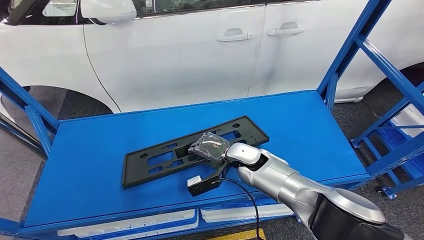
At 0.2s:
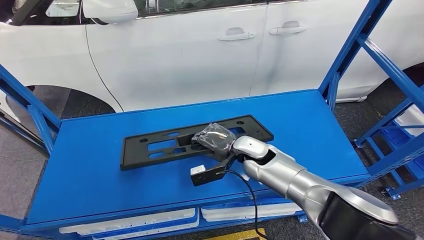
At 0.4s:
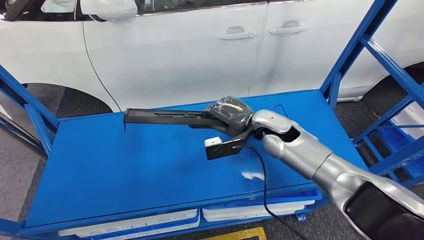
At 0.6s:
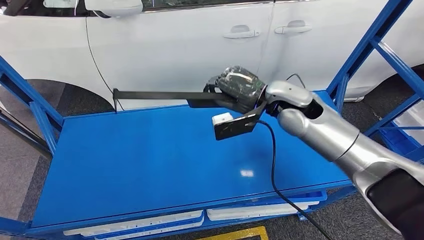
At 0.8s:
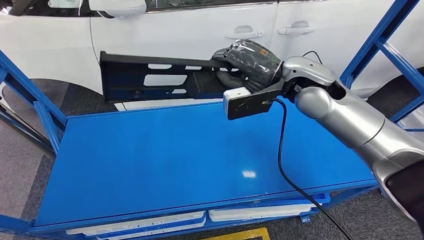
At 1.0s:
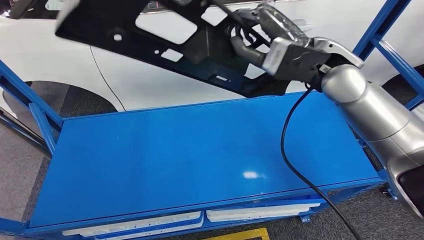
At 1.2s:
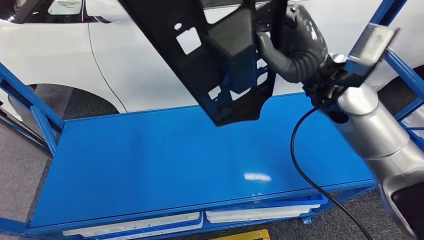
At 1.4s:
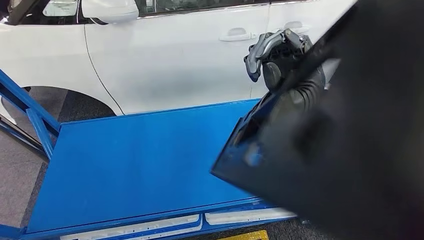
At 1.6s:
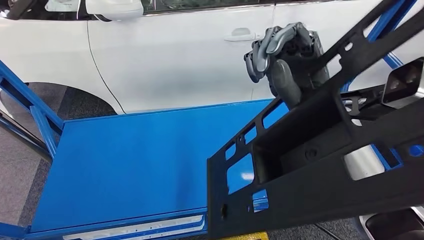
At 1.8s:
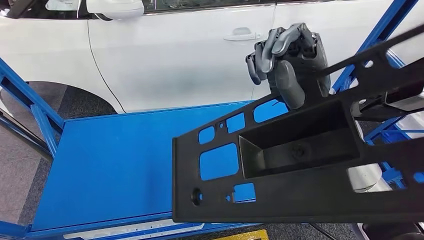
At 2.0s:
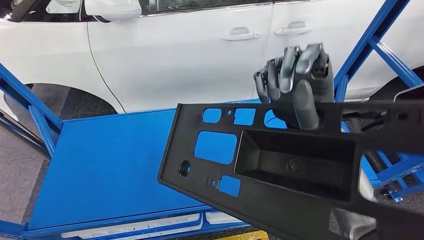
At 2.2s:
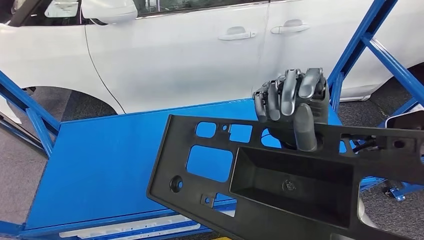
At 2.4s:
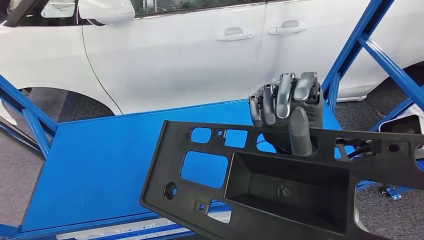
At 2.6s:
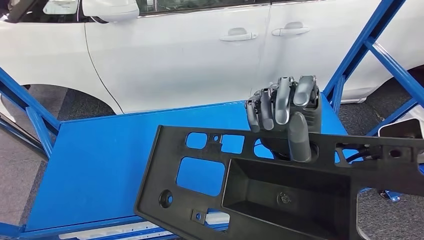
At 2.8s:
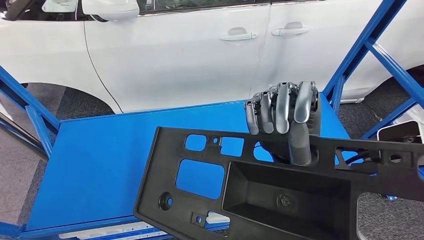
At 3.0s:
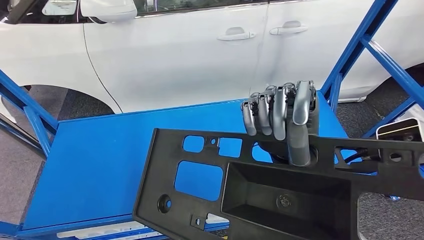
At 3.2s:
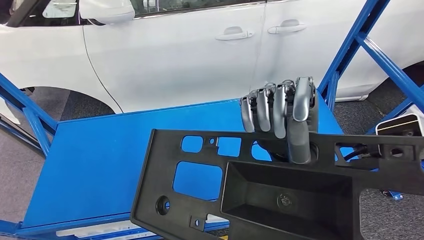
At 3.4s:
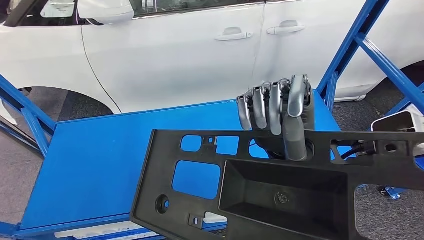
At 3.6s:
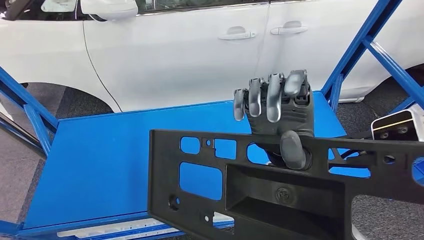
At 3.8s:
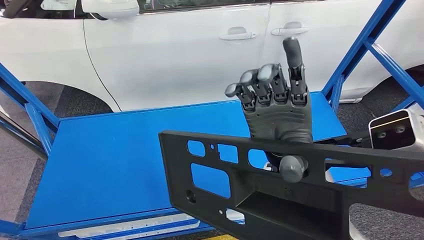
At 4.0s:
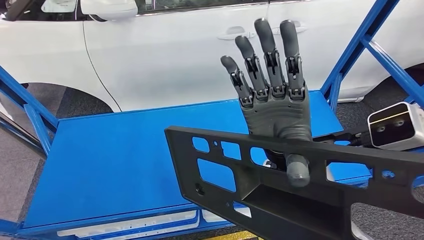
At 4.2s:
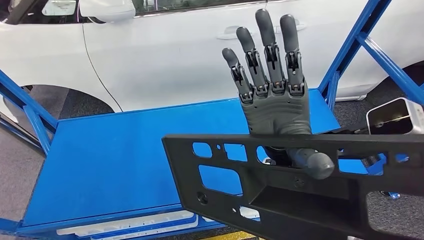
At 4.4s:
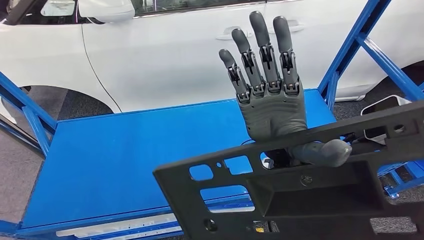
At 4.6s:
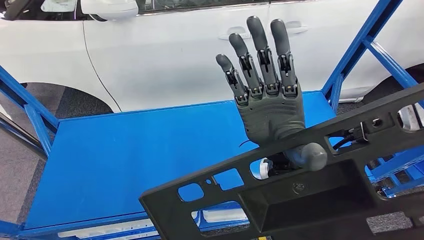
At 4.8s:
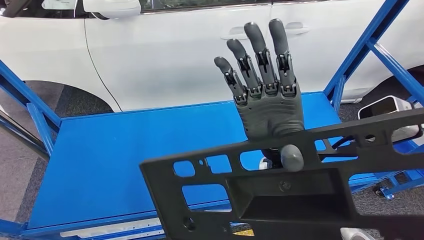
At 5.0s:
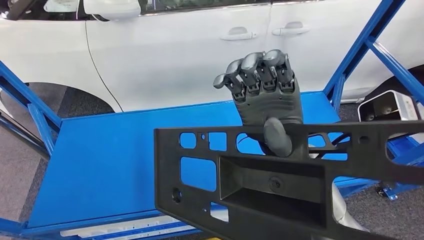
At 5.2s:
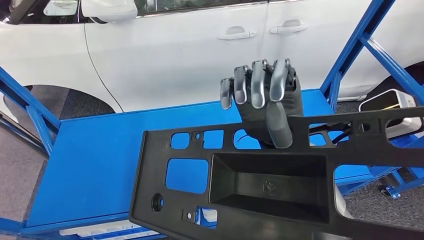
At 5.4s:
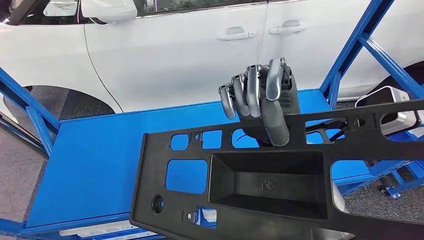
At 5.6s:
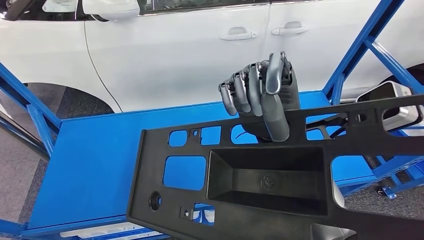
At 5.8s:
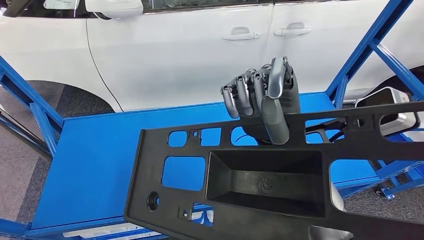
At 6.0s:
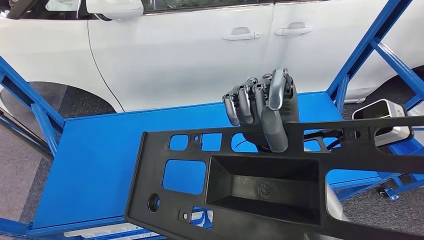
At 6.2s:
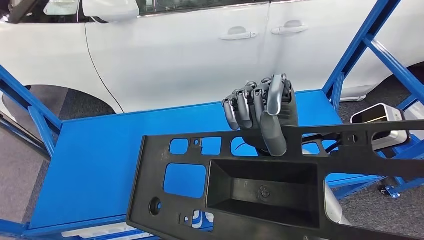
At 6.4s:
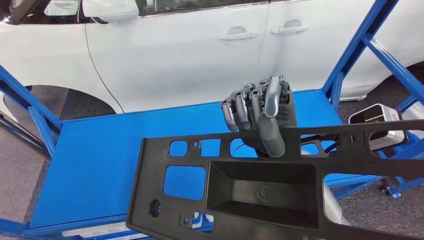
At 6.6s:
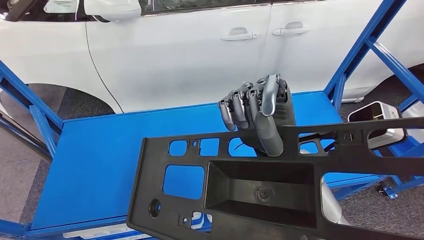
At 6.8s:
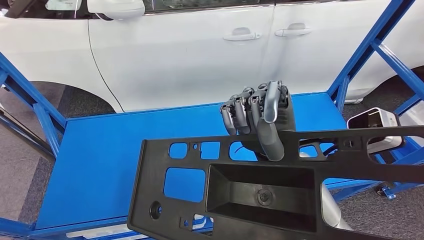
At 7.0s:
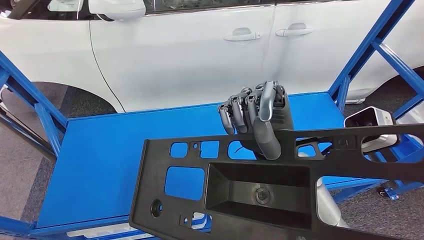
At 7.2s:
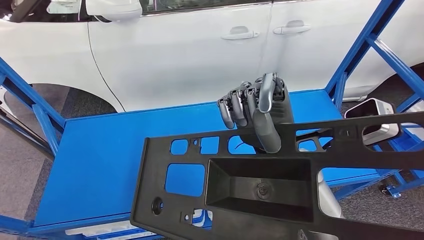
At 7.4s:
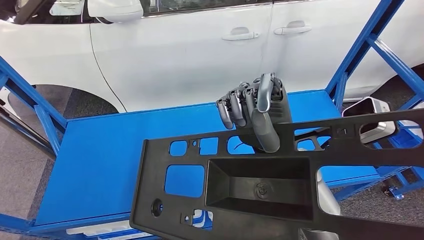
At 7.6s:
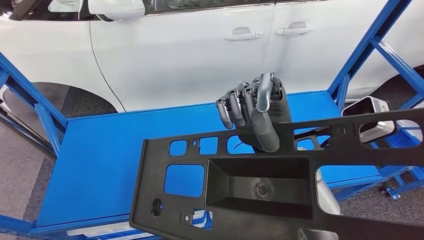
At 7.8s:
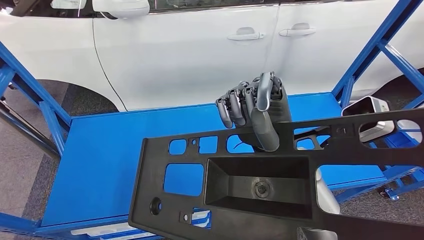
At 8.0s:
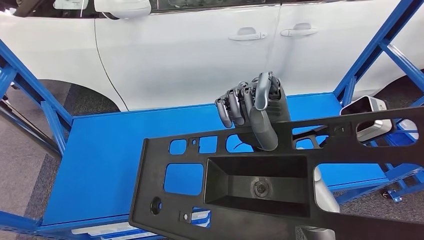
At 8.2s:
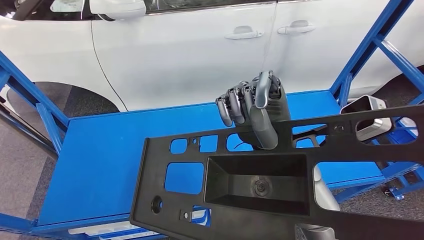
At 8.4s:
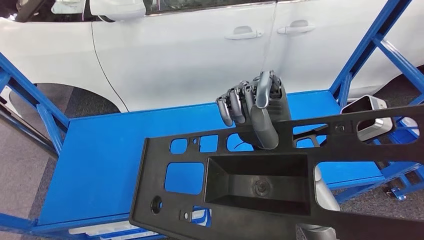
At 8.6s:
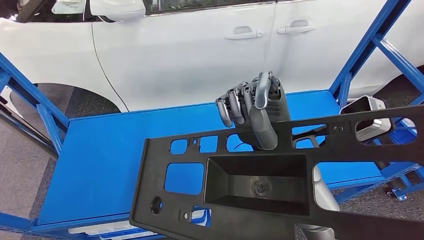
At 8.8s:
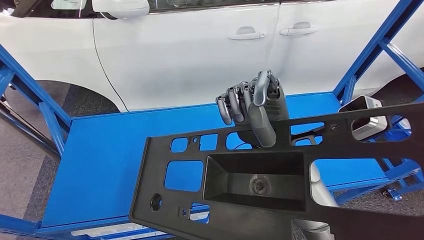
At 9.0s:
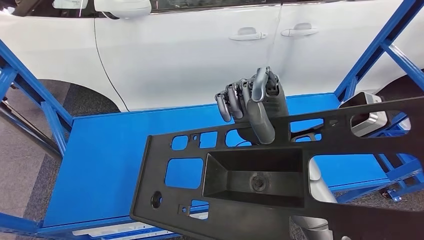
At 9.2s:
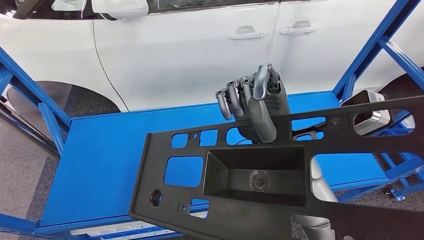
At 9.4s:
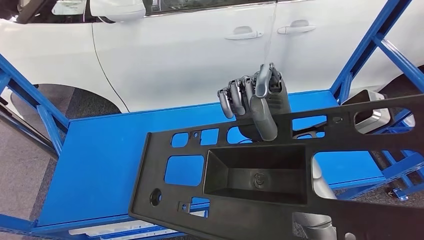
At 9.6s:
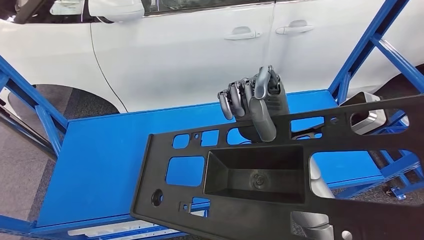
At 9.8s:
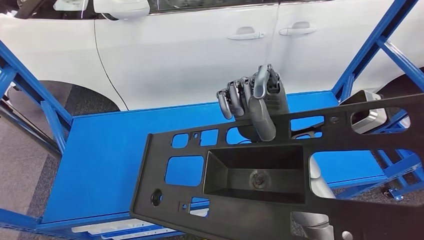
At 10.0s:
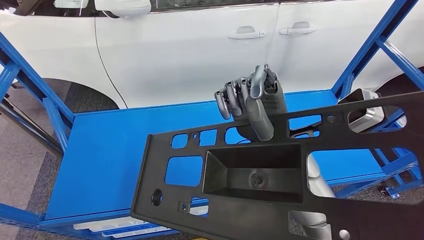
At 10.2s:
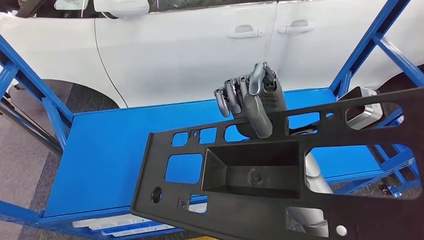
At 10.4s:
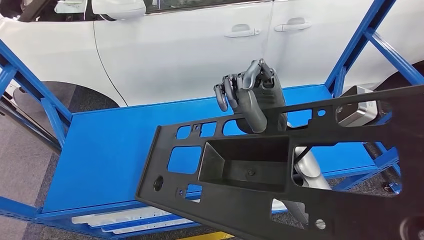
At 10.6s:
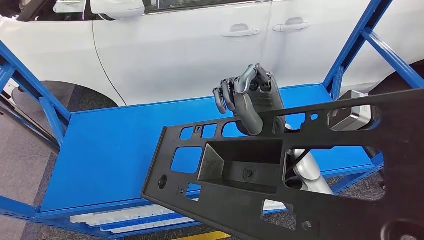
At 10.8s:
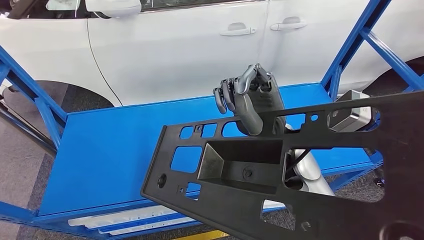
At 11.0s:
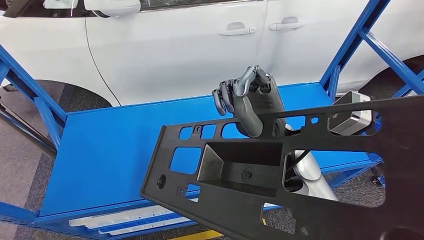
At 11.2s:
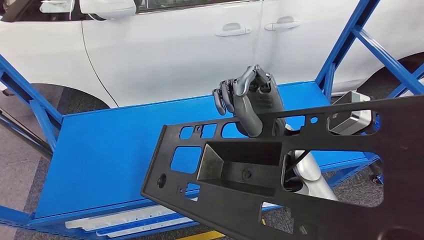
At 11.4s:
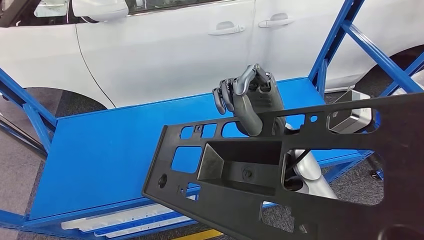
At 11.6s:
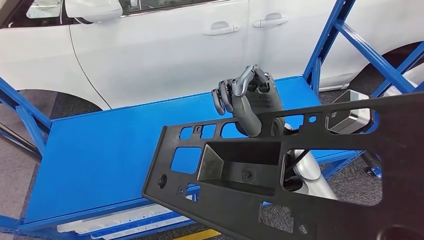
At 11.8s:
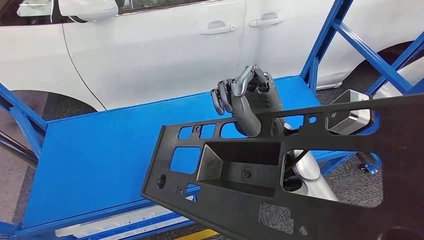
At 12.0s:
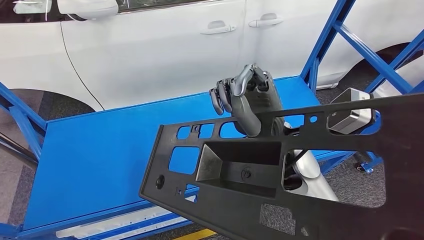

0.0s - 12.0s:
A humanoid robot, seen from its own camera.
6.0s - 7.6s: The hands stay close to where they were, moving slightly.

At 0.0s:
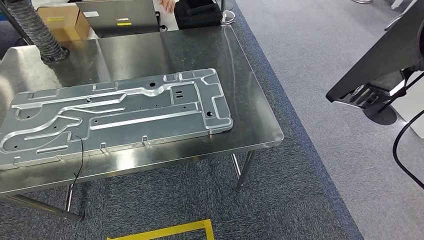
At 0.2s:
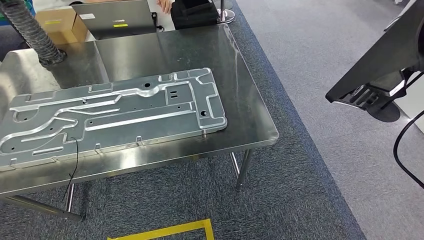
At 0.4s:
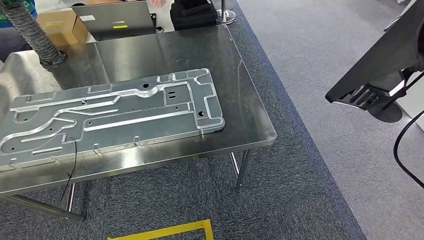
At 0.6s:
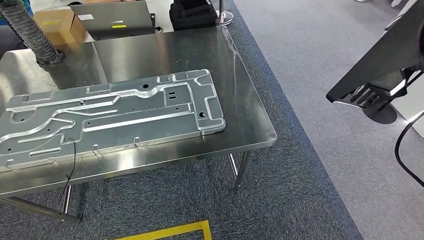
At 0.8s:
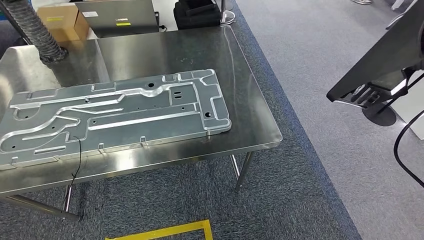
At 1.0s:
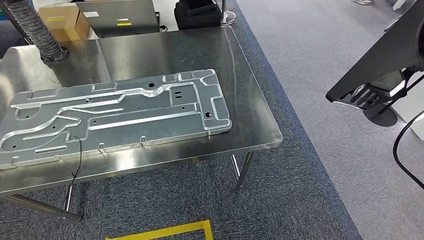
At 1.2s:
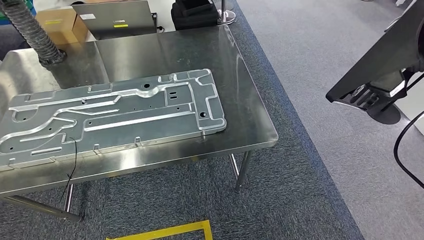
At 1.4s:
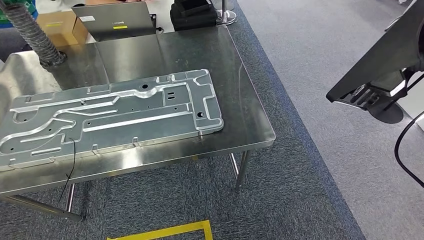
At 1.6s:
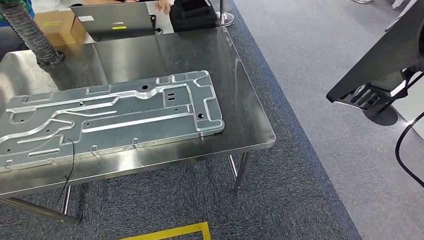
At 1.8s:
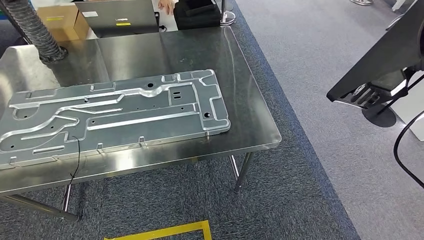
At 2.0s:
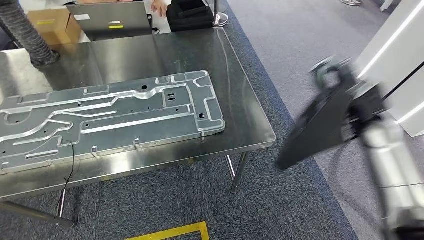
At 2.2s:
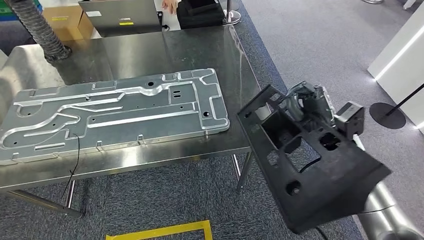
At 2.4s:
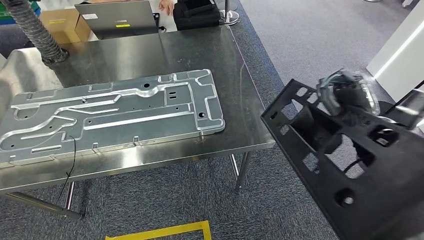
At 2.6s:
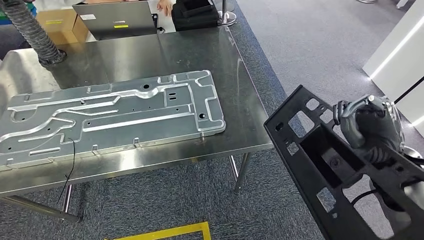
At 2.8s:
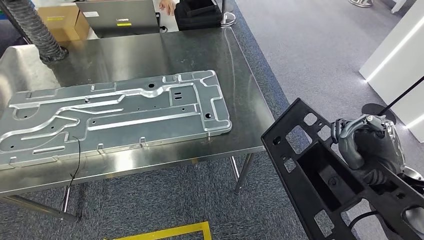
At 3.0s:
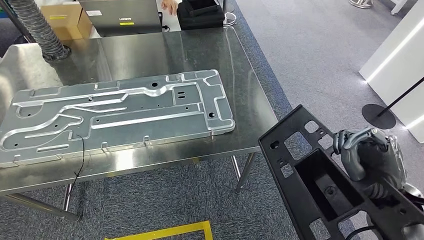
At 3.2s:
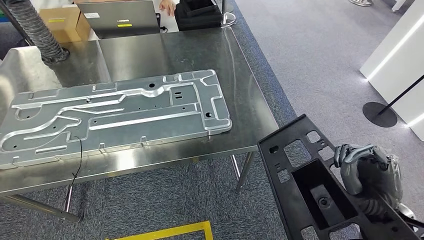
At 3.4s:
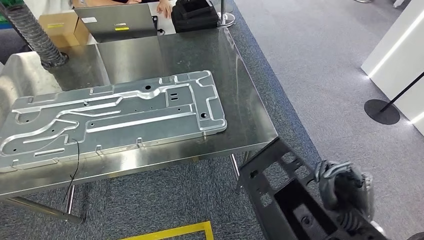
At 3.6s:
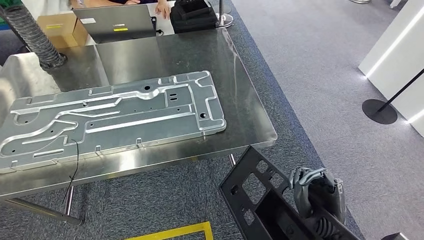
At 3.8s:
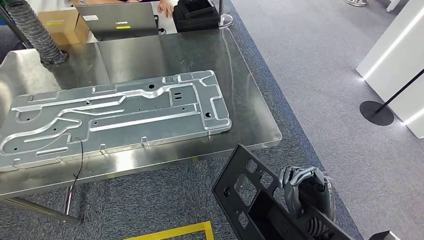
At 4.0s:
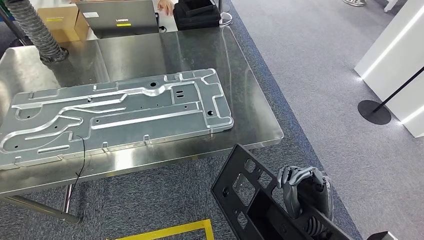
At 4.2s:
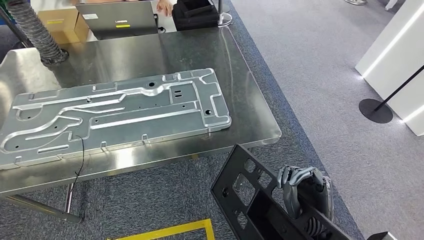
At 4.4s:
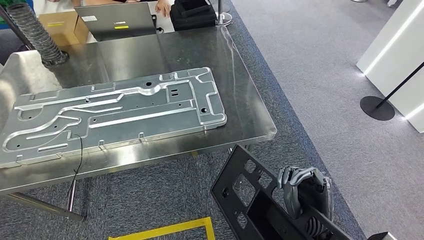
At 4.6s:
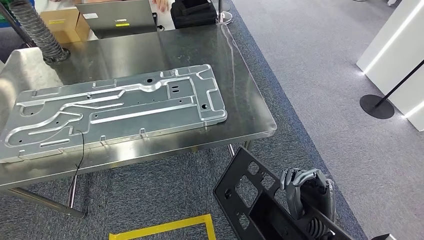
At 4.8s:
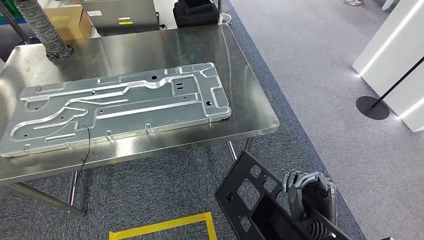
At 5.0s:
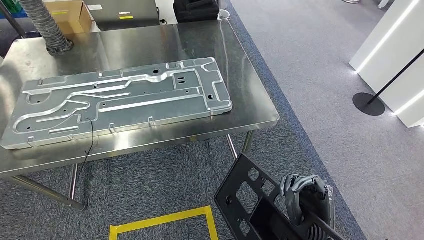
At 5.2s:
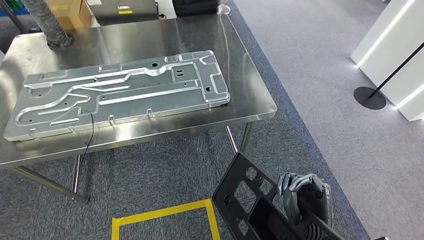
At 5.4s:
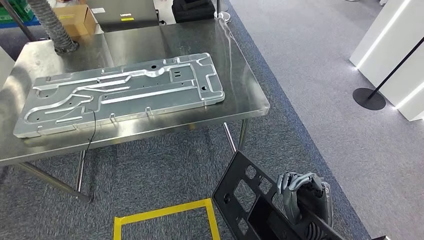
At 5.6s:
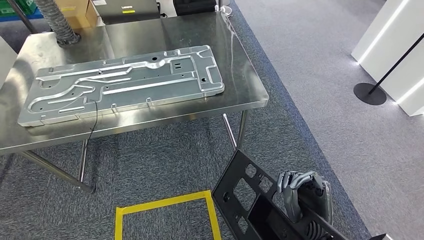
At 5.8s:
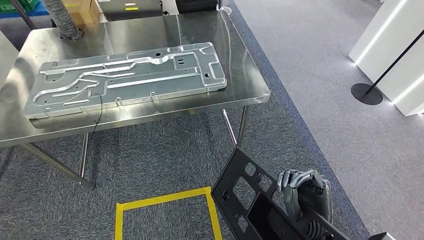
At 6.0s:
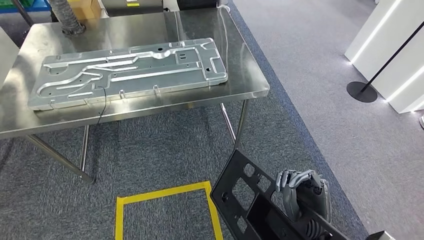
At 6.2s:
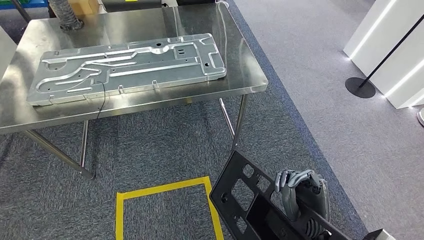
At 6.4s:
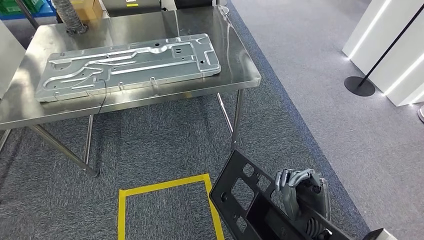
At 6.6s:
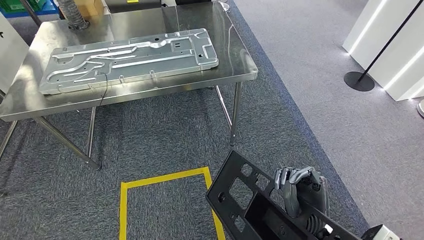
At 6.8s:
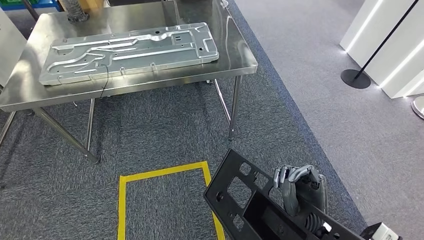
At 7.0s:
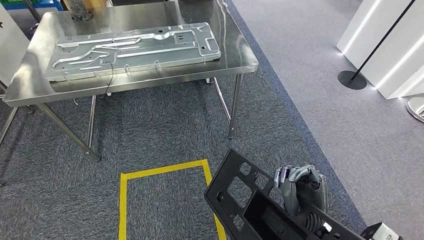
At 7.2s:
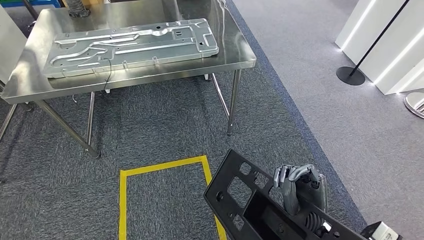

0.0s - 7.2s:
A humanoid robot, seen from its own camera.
Step, 0.0s - 2.6s: Move the large material to the workbench.
0.0s - 1.4s: Neither hand changes place.
